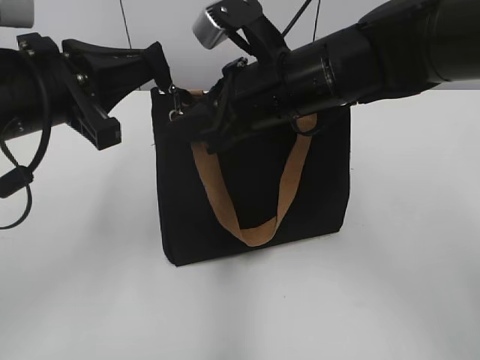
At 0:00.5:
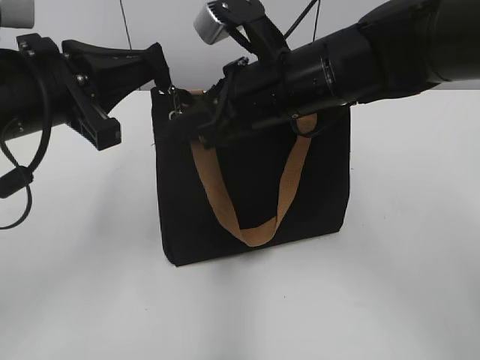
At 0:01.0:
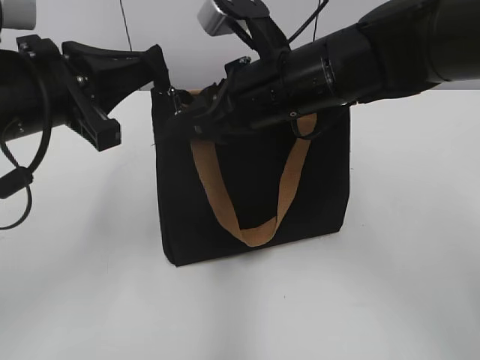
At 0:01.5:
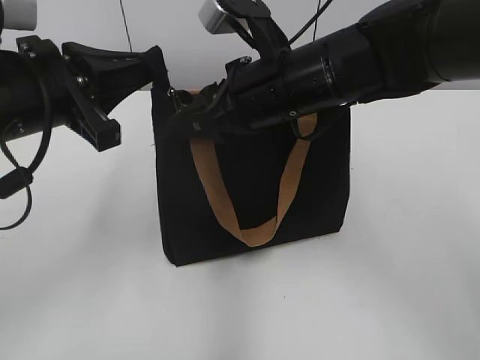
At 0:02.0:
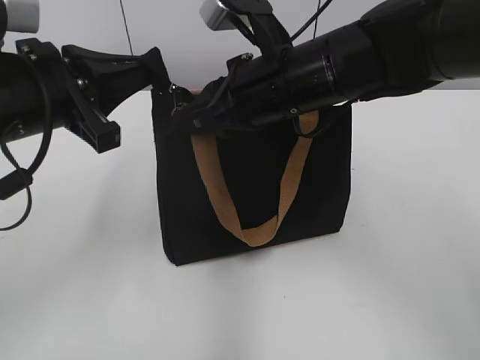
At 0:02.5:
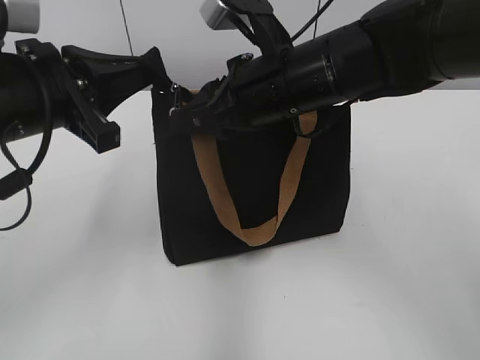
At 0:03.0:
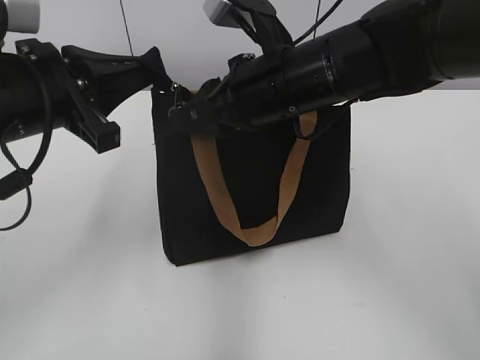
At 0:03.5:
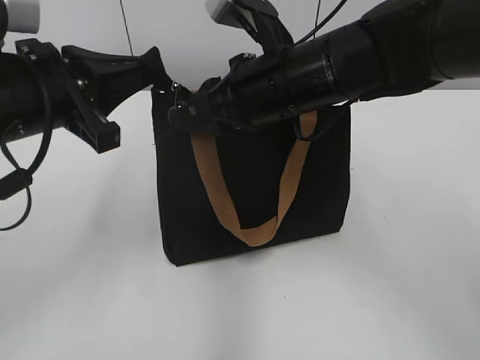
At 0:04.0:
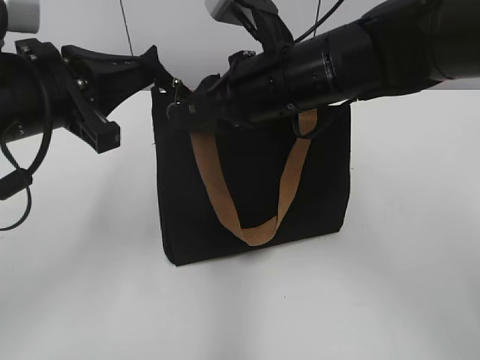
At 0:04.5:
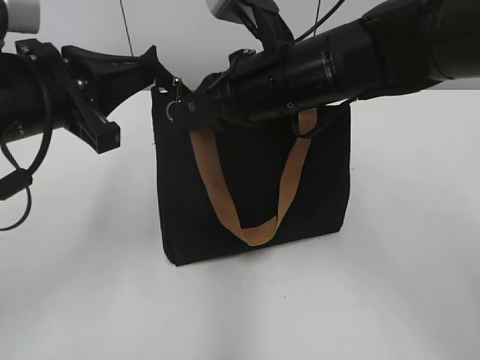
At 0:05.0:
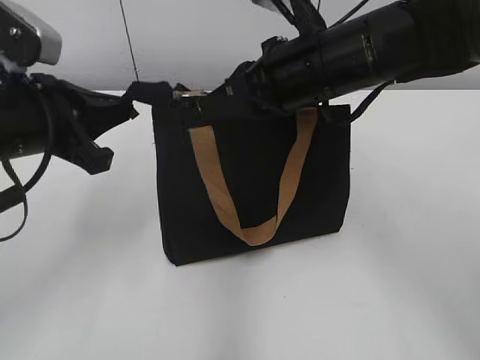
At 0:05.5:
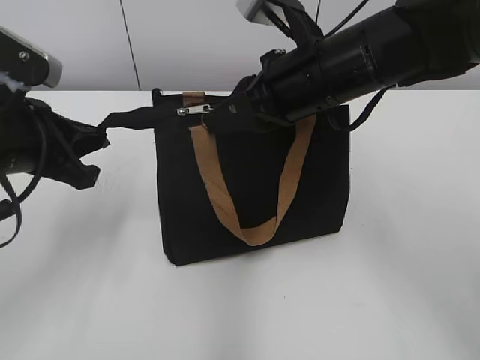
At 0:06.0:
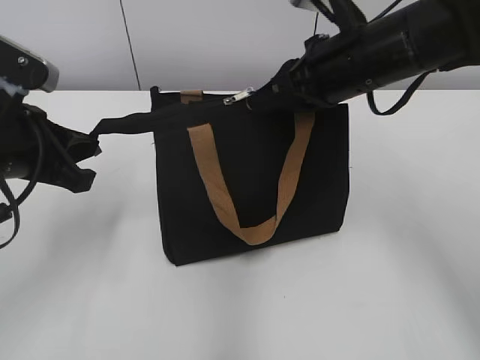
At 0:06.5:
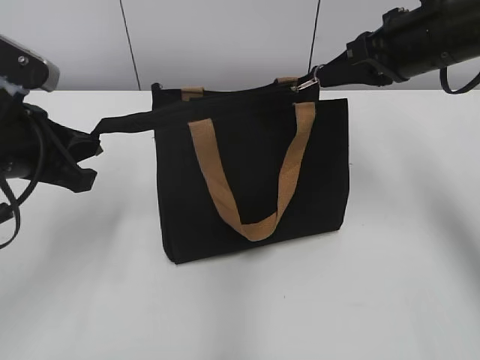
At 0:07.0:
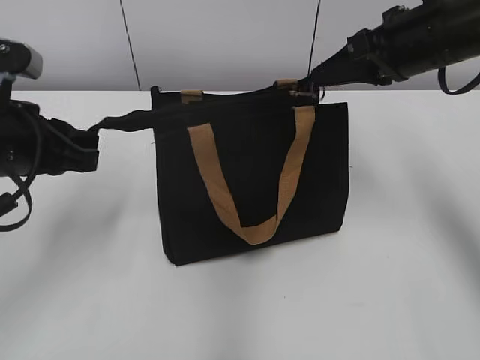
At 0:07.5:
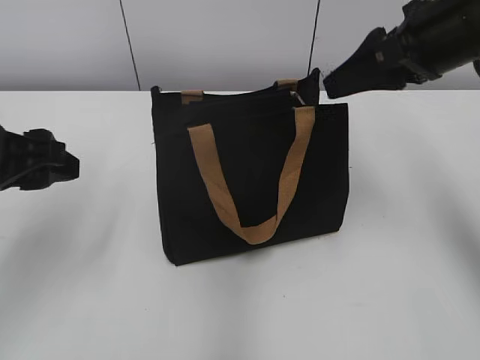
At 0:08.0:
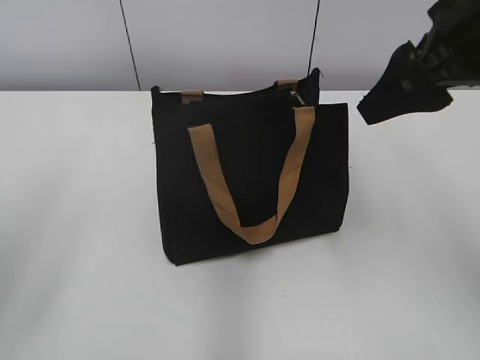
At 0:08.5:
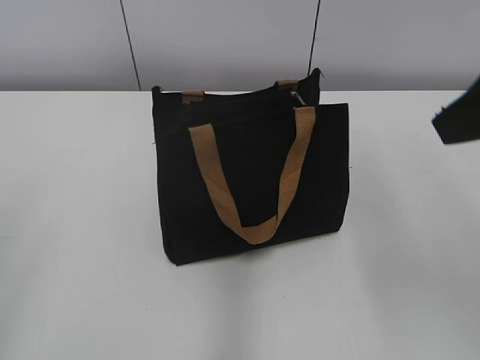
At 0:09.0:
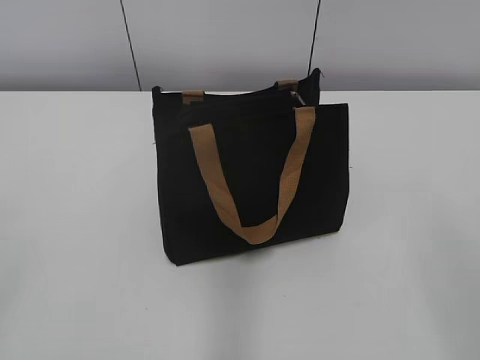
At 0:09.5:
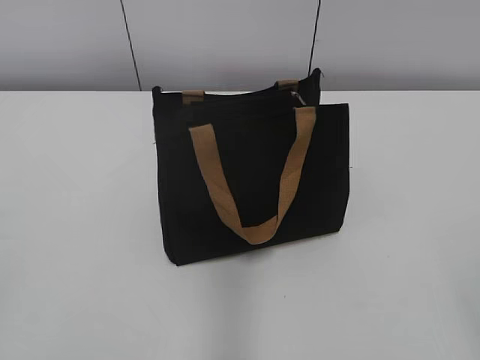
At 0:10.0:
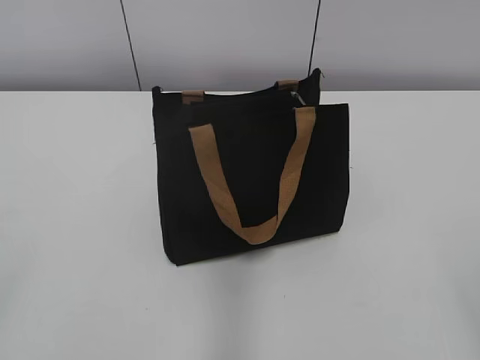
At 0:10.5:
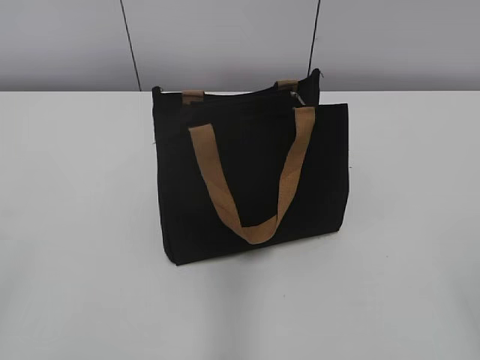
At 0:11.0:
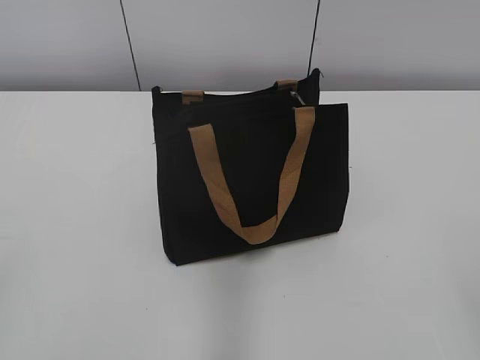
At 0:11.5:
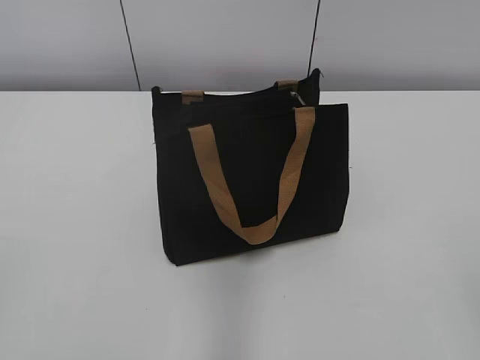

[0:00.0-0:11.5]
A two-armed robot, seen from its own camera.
Step, 0:00.0 to 0:07.0: Zip up the bag with your right hand.
0:00.0 to 0:02.0: The right gripper closes up.
0:02.0 to 0:04.0: The grippers move only a little.
0:04.0 to 0:06.0: The left gripper moves roughly 5 cm; the right gripper travels to the right by approximately 5 cm.
0:06.0 to 0:07.5: The right gripper shifts some 5 cm to the right, and opens up. Meanwhile the left gripper opens.
0:07.5 to 0:09.5: The right gripper heads backward, covering about 35 cm. Meanwhile the left gripper shifts about 25 cm backward and to the left.
